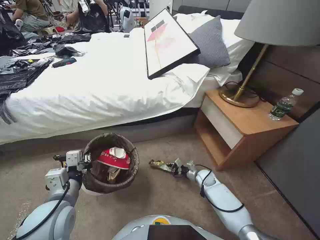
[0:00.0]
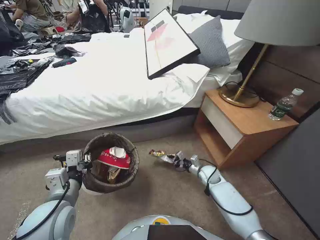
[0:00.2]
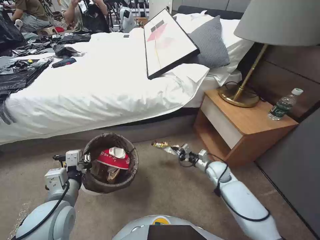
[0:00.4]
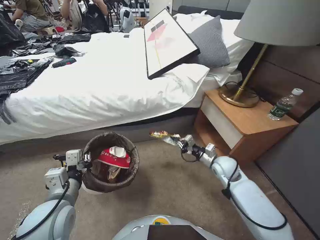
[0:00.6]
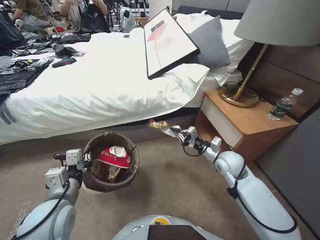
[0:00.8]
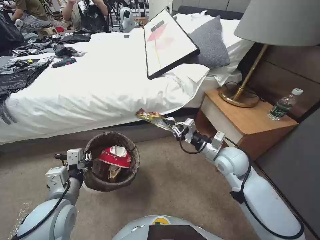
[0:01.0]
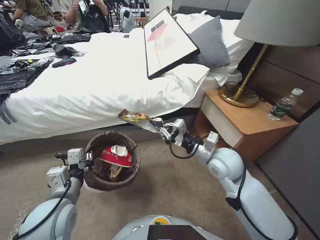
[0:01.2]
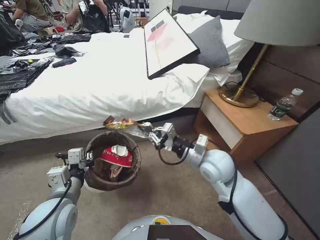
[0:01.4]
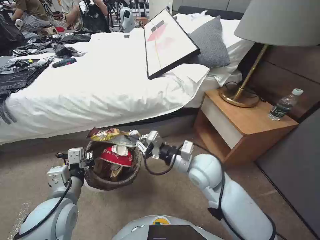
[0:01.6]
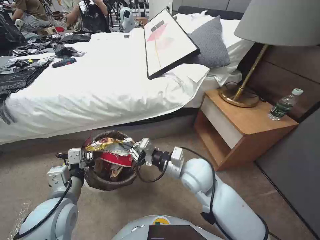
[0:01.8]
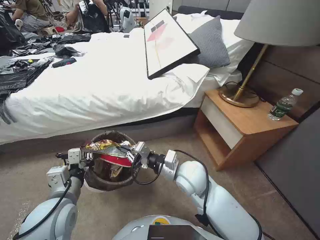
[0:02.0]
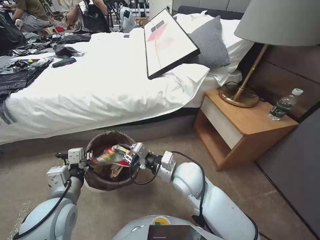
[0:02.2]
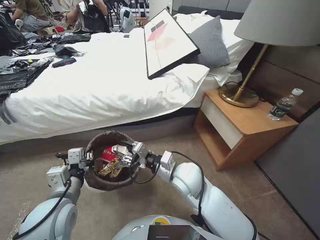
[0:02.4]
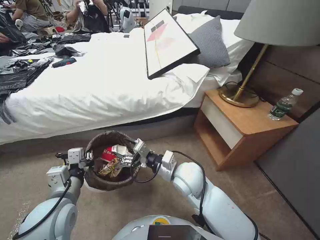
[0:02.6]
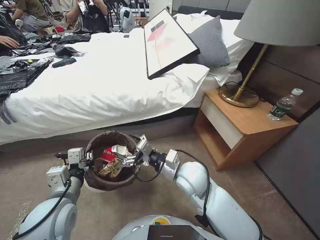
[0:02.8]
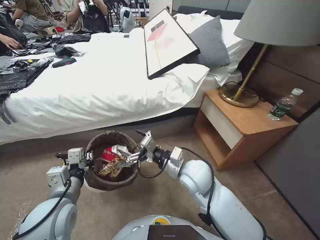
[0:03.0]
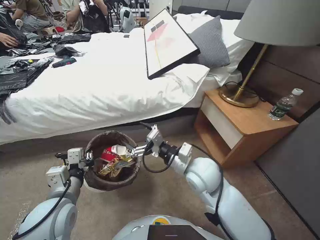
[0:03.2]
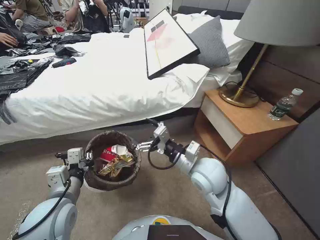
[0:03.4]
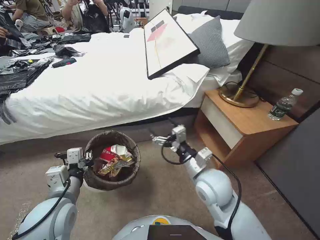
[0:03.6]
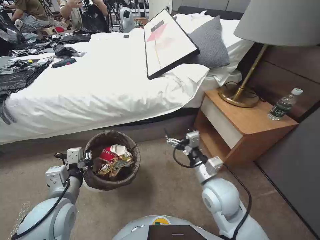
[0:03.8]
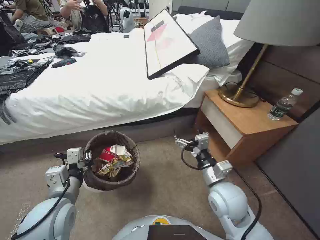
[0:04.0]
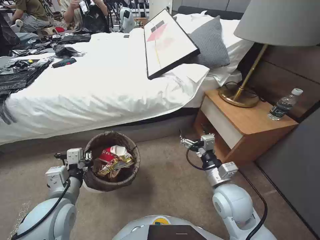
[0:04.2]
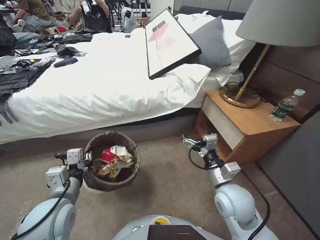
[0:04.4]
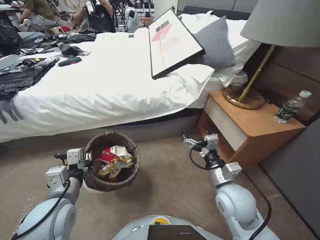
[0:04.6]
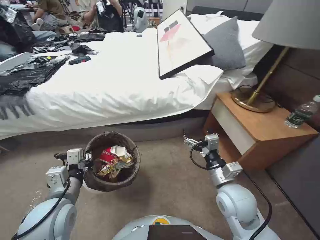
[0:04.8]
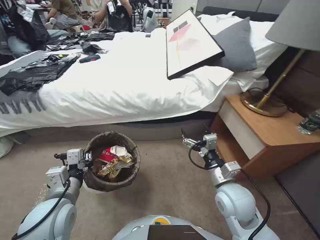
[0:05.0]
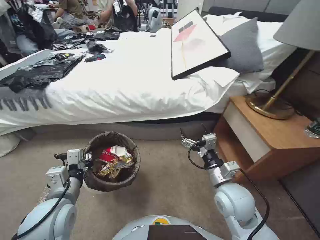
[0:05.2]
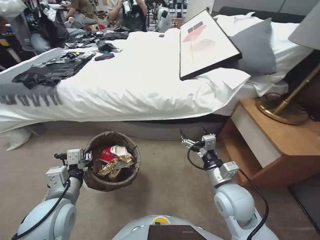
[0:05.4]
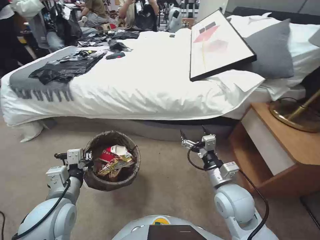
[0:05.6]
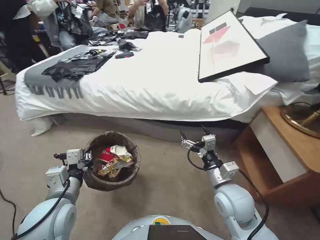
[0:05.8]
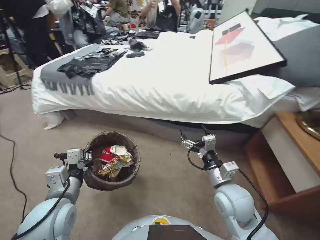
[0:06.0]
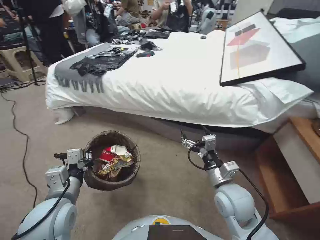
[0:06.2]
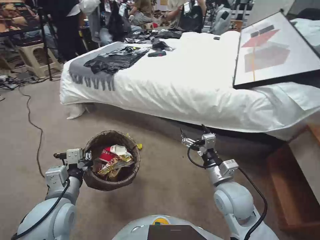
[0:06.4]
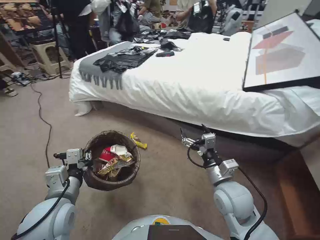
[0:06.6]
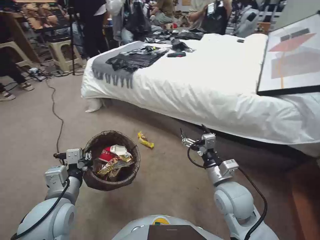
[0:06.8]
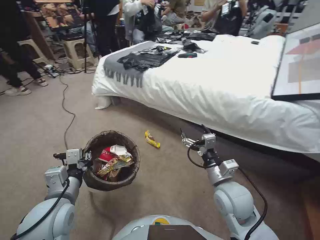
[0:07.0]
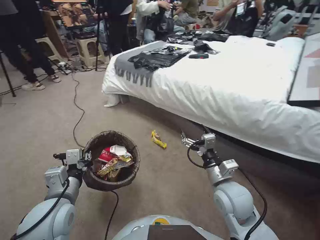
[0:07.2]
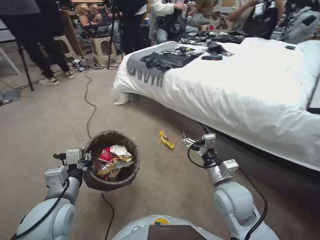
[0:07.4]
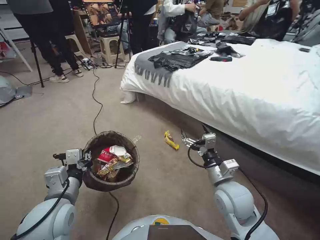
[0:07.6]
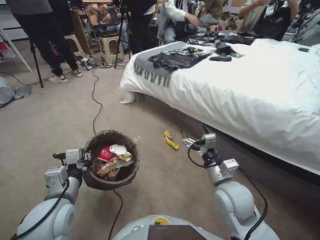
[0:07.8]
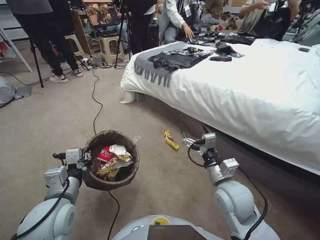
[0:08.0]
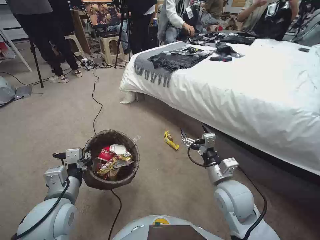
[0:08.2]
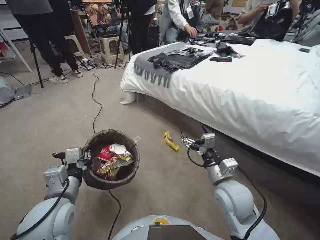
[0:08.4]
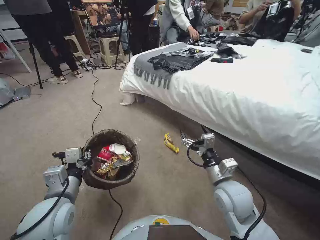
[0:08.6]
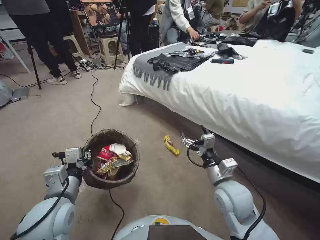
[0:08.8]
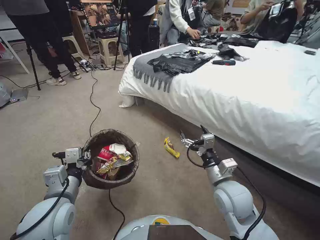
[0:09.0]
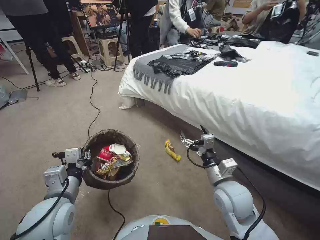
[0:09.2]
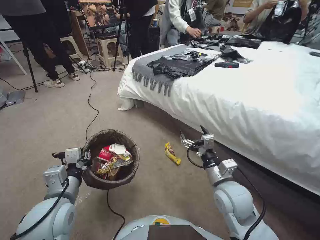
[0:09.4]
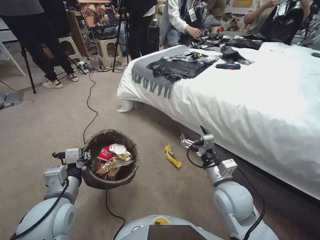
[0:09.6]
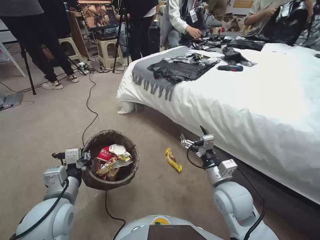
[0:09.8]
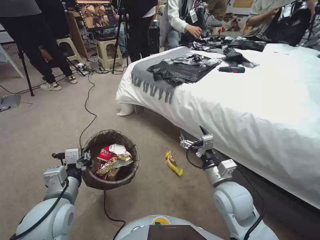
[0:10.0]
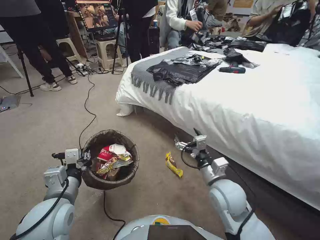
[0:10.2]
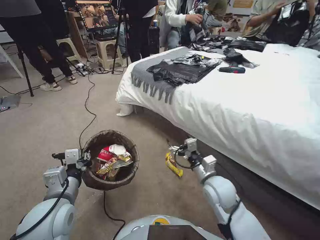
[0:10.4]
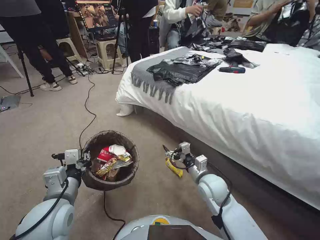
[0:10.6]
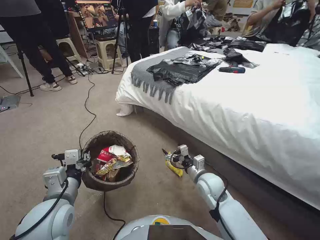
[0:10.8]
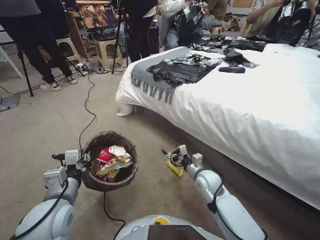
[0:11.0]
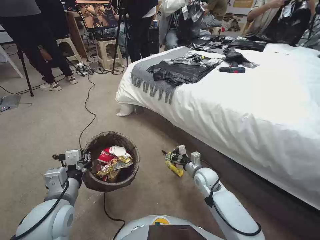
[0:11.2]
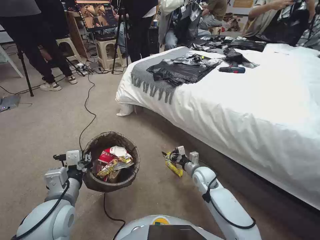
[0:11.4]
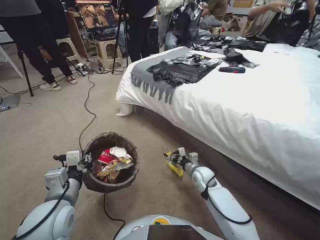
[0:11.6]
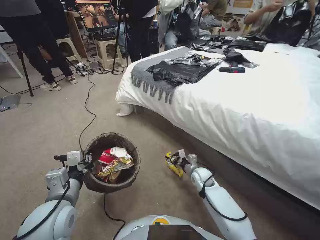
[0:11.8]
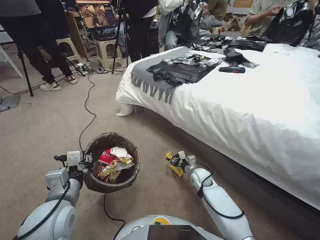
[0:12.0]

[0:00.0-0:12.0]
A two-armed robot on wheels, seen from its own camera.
Task of the whole recording: Pick up the trash bin, then pick up the garbage from the floor and place it into the trash bin.
0:00.0 to 0:01.6: The right gripper goes about 35 cm upward.
0:01.6 to 0:03.0: The right gripper shifts by about 5 cm, and opens its fingers.
0:03.0 to 0:04.4: The right gripper moves to the right and backward, roughly 10 cm.
0:10.4 to 0:12.0: The right gripper heads downward and forward, covering roughly 25 cm.

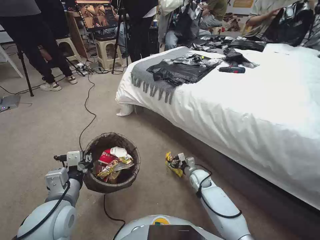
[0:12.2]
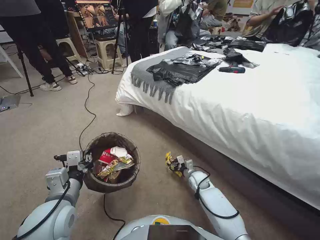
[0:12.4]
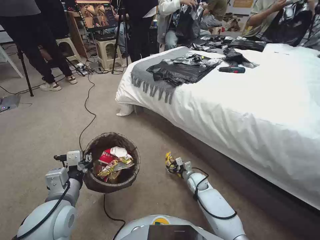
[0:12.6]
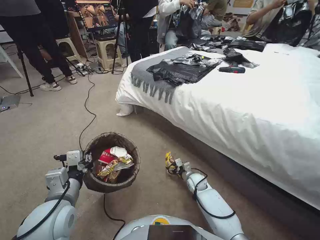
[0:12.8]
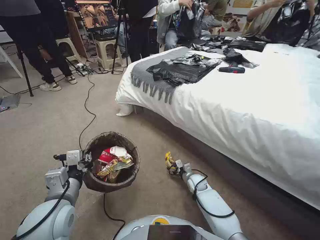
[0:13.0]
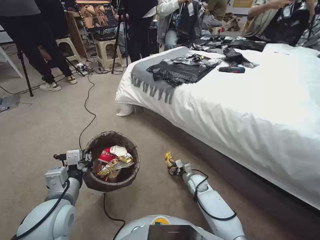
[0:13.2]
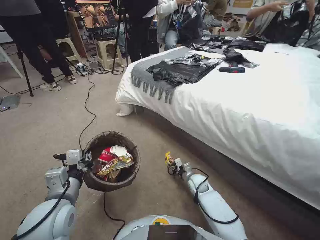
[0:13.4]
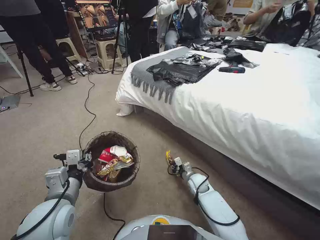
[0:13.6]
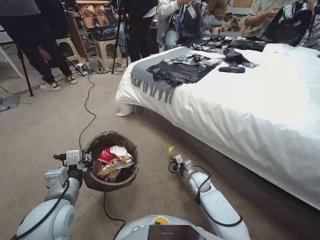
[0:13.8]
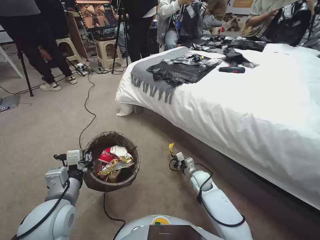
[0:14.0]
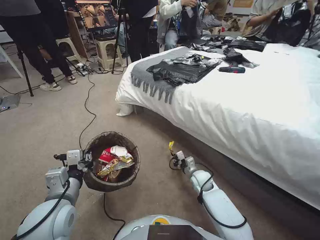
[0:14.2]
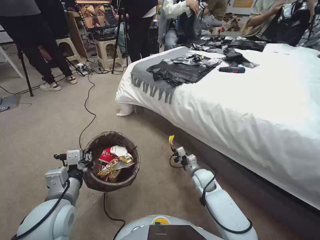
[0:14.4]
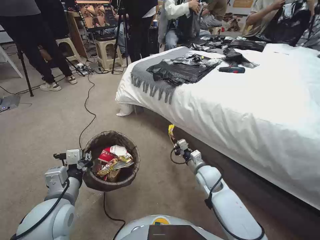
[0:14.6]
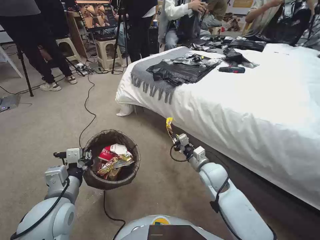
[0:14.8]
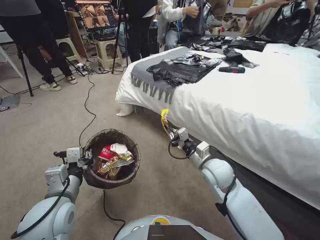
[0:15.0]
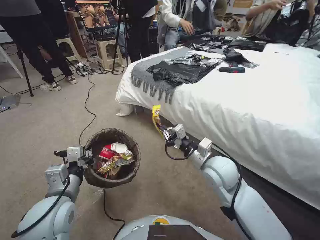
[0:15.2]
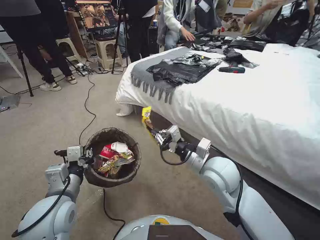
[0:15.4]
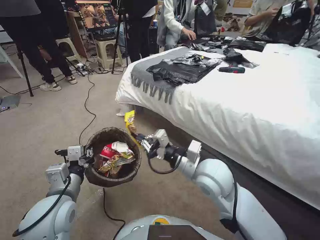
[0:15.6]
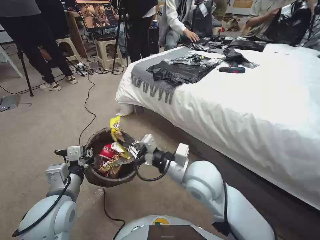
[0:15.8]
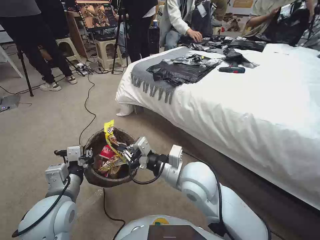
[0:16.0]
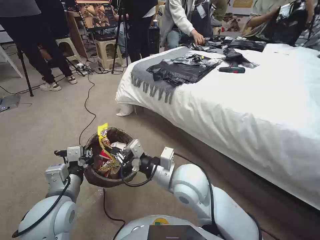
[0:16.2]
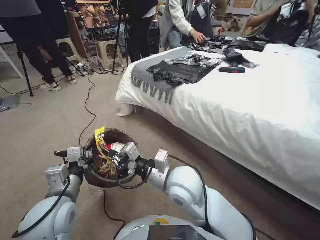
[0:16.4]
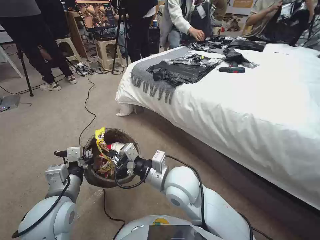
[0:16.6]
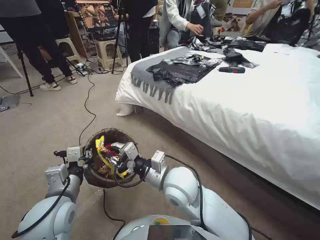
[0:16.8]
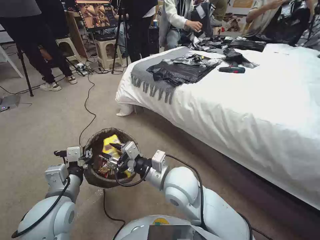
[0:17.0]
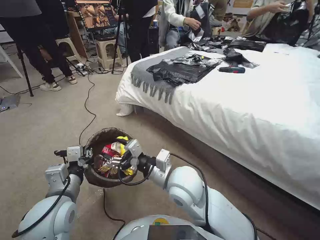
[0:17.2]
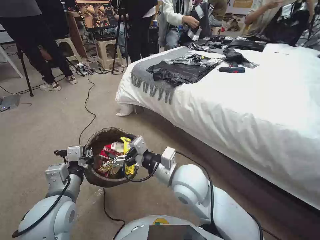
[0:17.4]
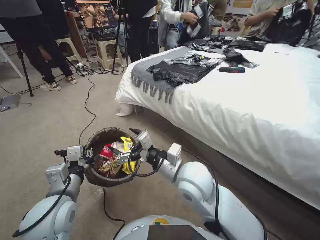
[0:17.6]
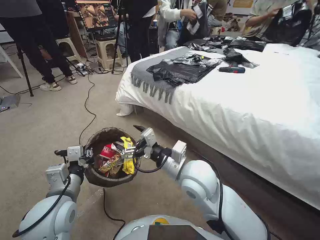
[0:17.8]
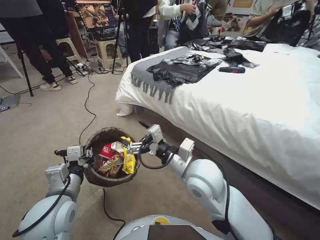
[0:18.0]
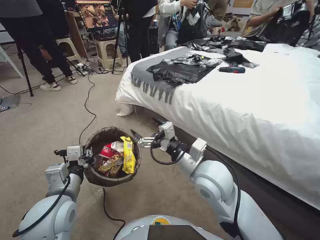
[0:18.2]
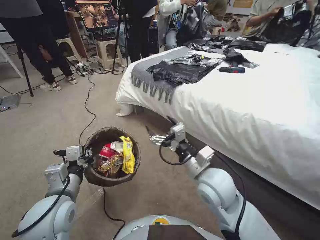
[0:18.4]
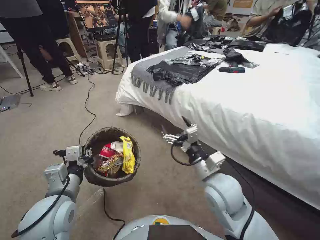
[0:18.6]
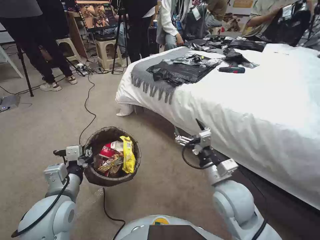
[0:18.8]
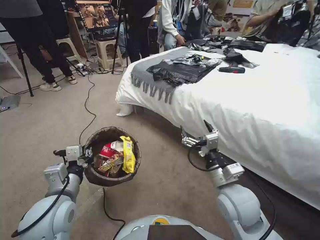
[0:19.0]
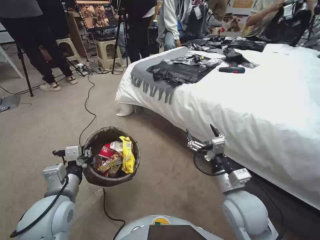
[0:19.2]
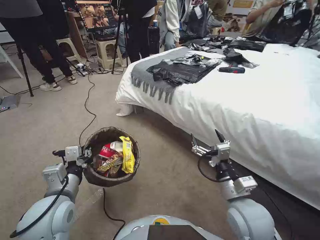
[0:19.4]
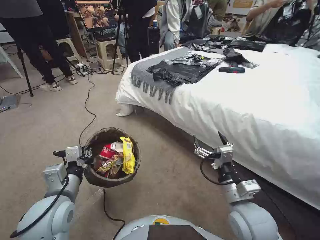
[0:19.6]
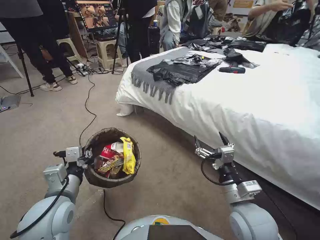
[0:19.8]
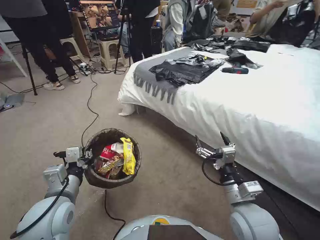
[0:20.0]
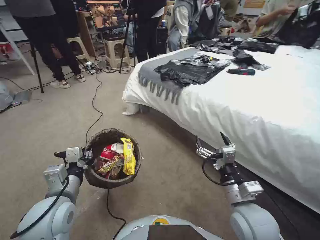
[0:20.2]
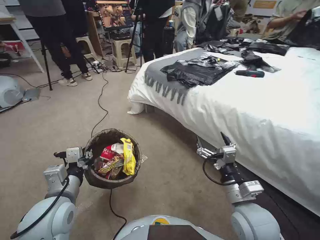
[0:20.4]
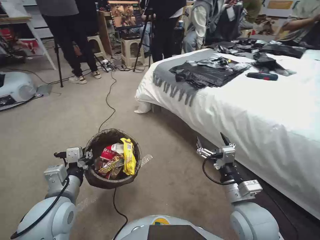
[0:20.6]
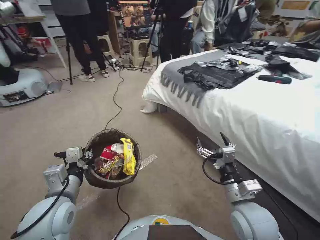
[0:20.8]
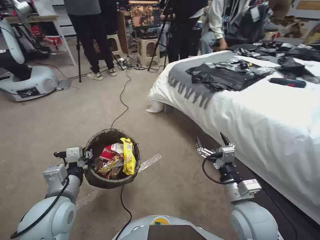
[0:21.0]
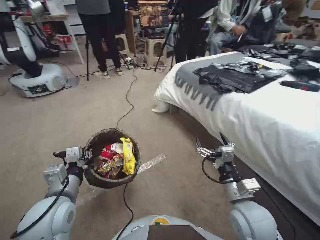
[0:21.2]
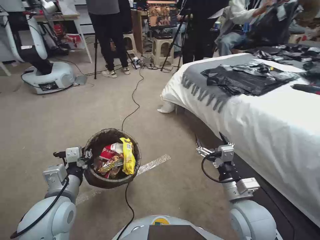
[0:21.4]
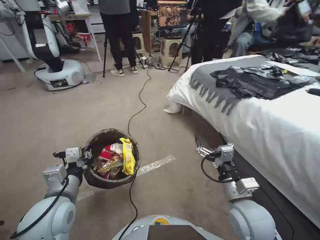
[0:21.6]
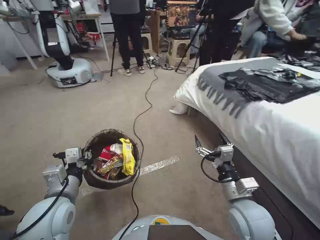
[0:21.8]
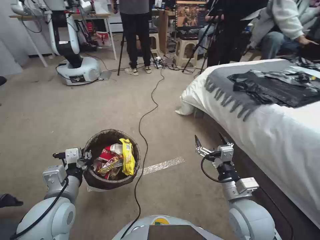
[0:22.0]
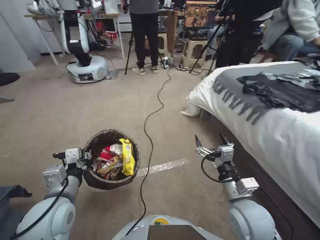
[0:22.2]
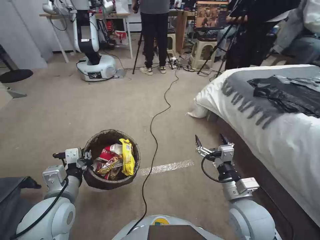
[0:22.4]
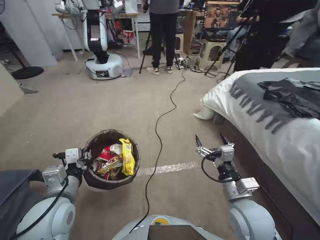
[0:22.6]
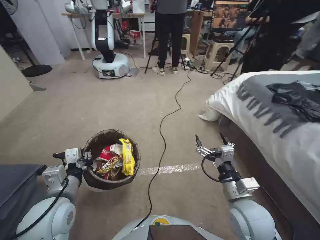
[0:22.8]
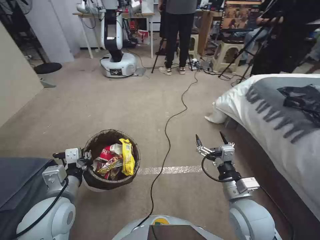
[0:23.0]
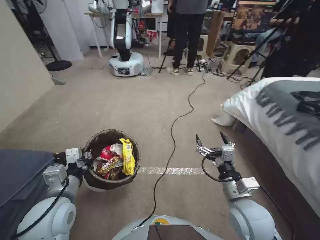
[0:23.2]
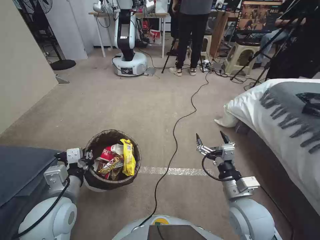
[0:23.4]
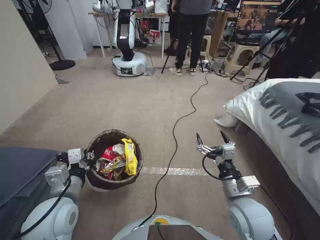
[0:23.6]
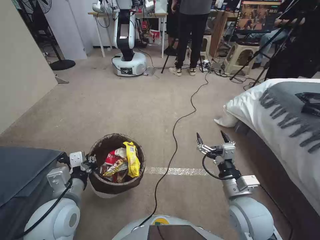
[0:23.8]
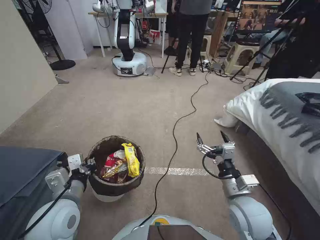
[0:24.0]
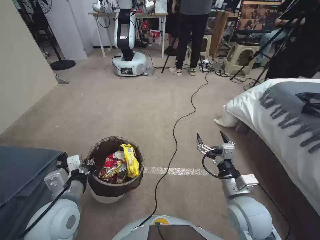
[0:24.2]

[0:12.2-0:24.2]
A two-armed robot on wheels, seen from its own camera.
Task of the whole recording: Pick up the trash bin, then pick up the garbage from the floor and place it into the trash bin.
0:12.2 to 0:13.8: The right gripper closes.
0:13.8 to 0:15.2: The right gripper moves upward, some 25 cm.
0:15.2 to 0:16.6: The right gripper shifts about 15 cm to the left.
0:16.6 to 0:18.2: The right gripper moves to the right, roughly 5 cm, and opens up.
0:18.2 to 0:19.8: The right gripper goes approximately 15 cm to the right, backward and downward.
